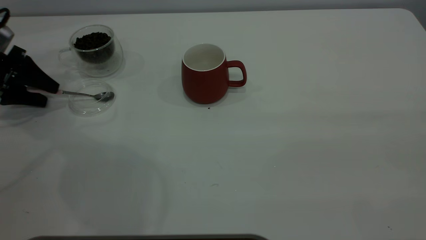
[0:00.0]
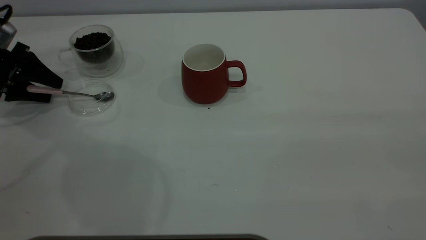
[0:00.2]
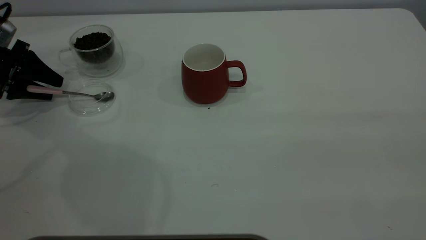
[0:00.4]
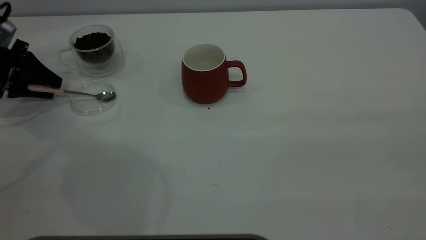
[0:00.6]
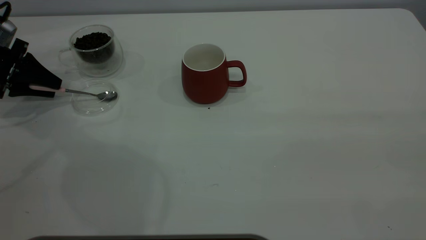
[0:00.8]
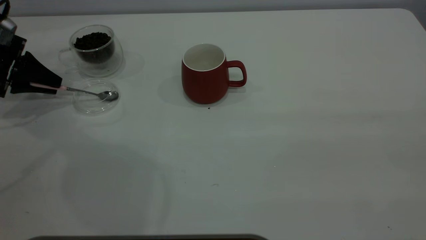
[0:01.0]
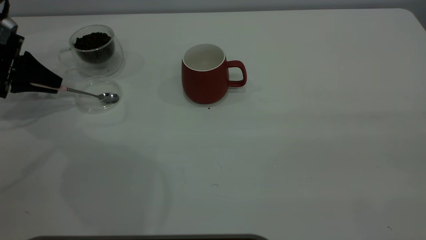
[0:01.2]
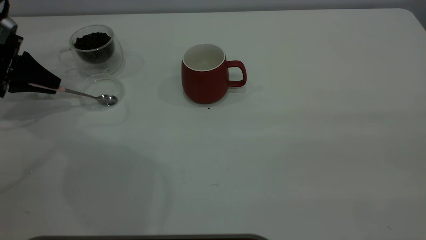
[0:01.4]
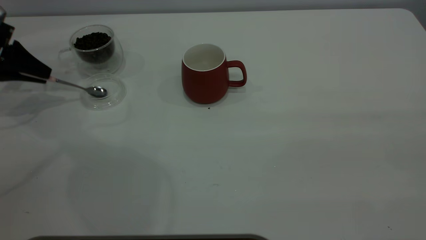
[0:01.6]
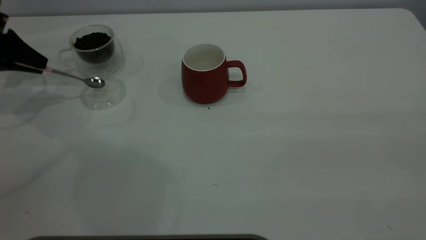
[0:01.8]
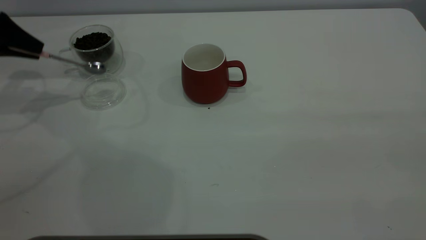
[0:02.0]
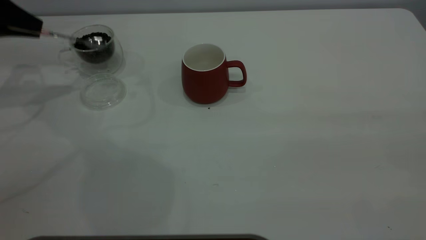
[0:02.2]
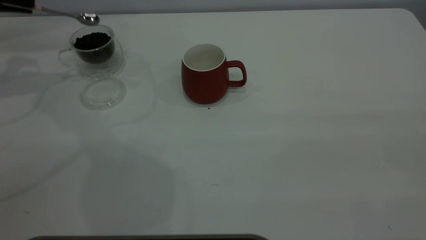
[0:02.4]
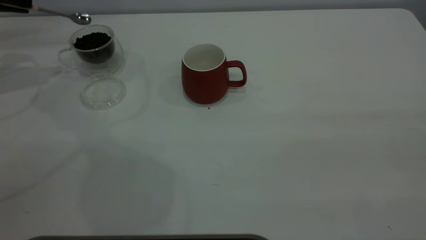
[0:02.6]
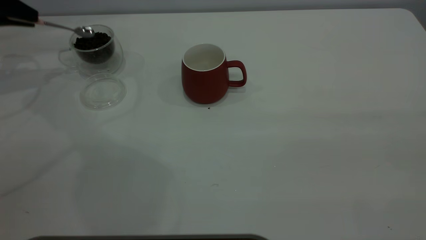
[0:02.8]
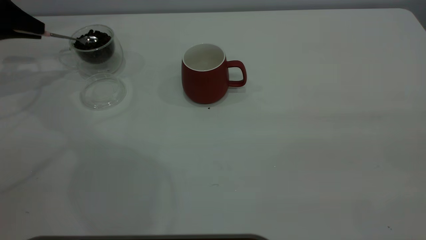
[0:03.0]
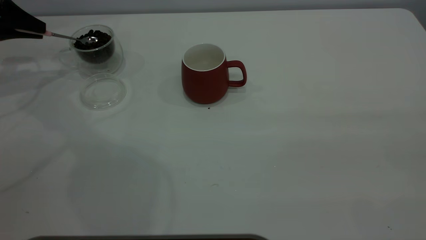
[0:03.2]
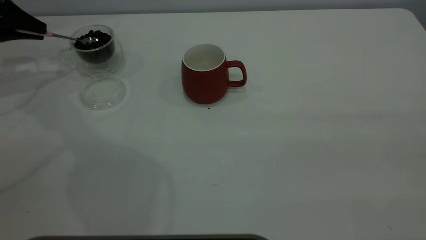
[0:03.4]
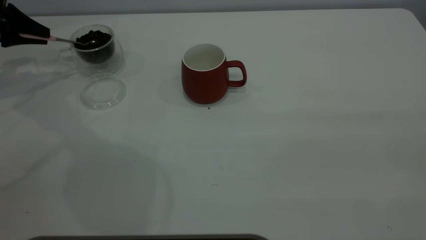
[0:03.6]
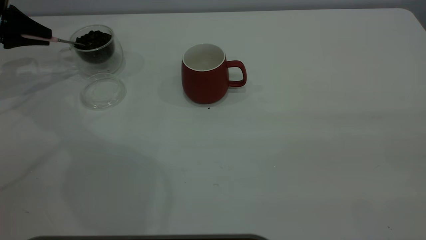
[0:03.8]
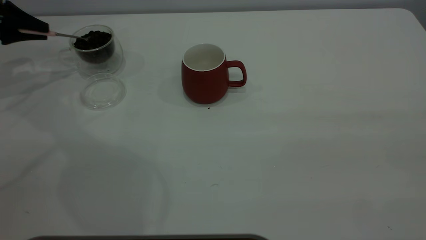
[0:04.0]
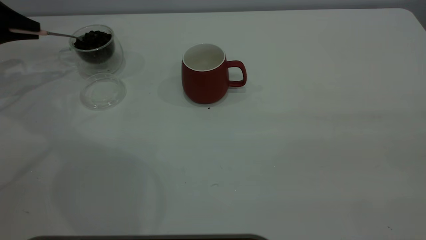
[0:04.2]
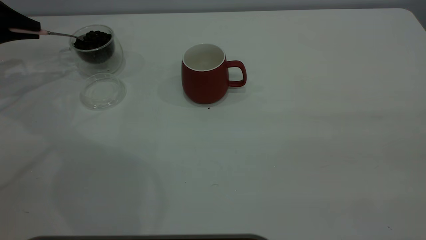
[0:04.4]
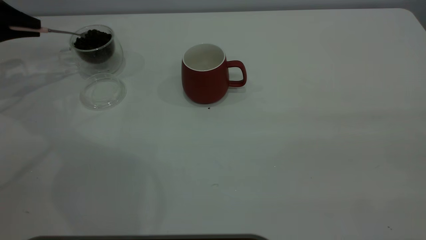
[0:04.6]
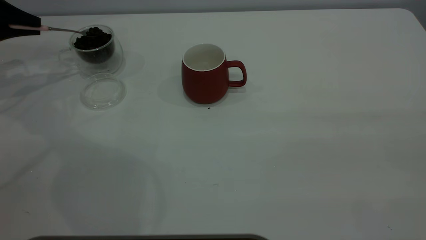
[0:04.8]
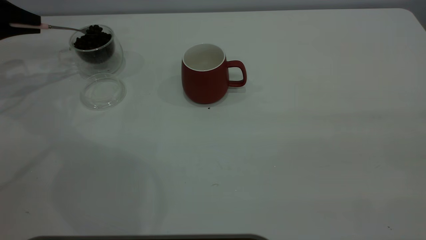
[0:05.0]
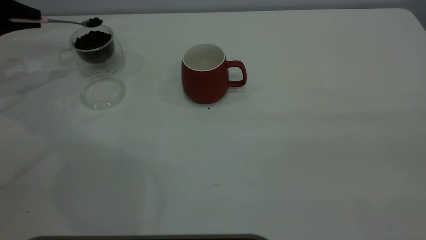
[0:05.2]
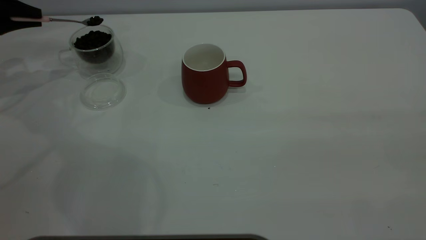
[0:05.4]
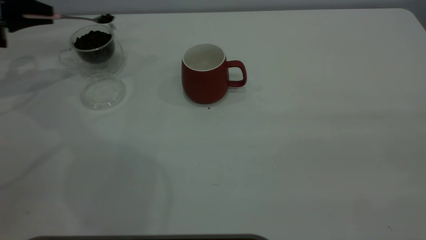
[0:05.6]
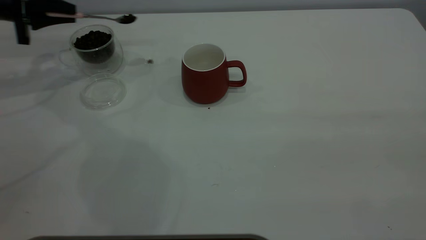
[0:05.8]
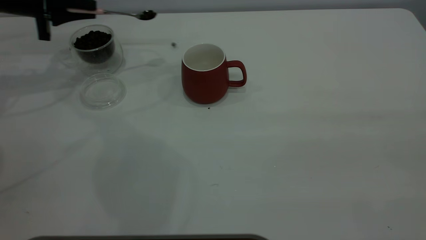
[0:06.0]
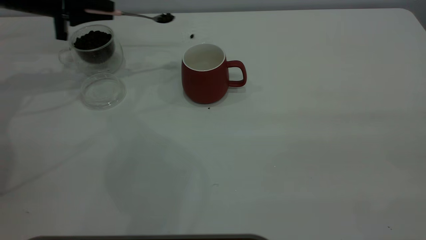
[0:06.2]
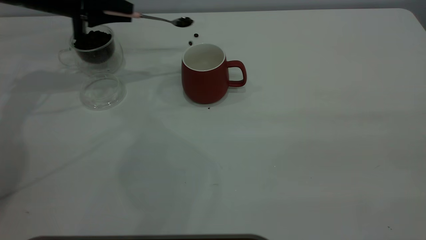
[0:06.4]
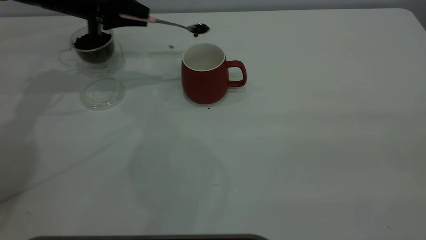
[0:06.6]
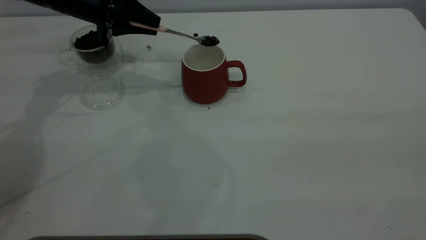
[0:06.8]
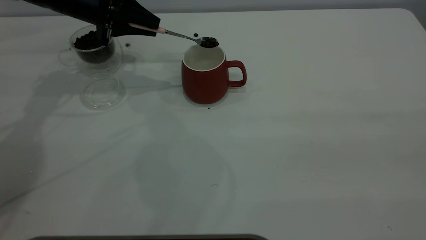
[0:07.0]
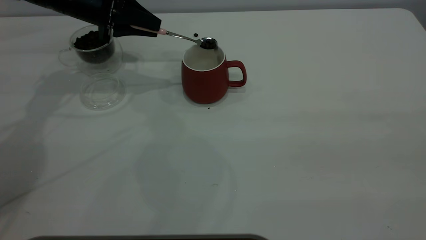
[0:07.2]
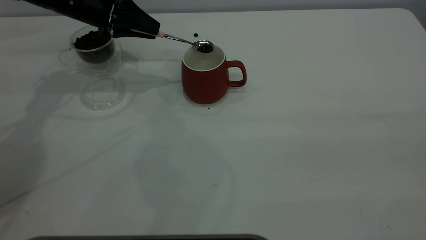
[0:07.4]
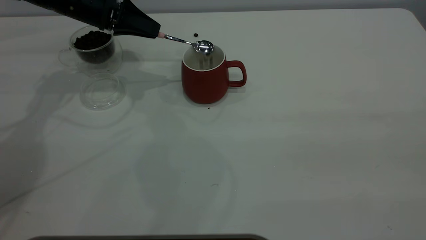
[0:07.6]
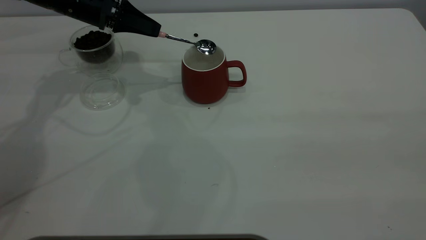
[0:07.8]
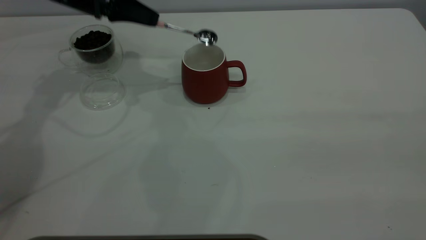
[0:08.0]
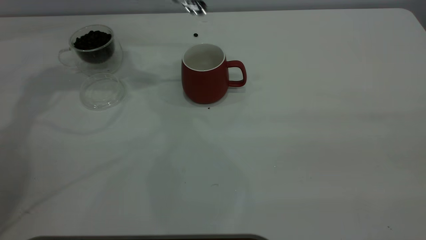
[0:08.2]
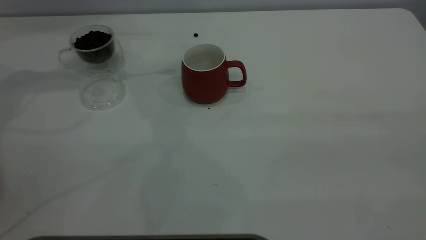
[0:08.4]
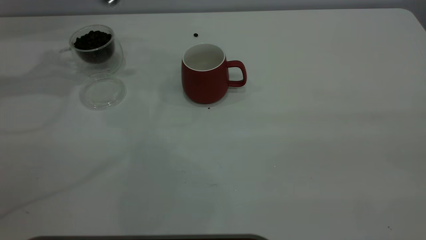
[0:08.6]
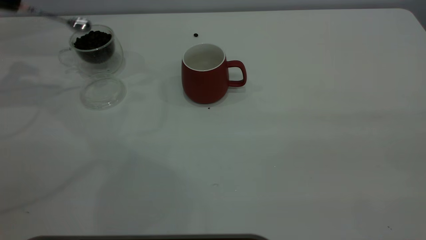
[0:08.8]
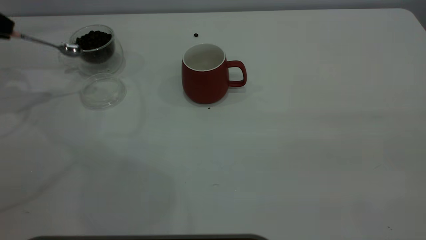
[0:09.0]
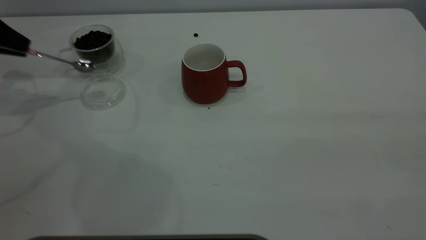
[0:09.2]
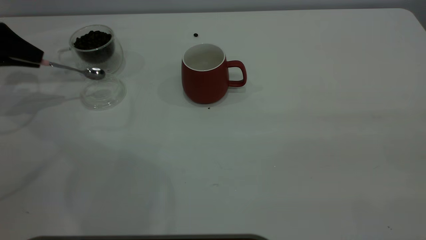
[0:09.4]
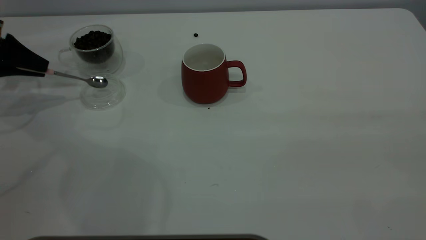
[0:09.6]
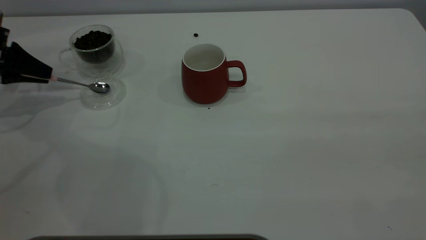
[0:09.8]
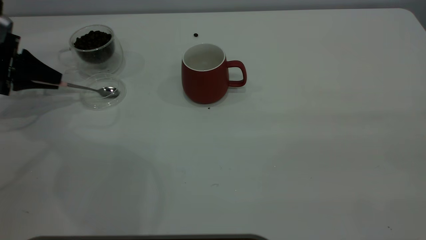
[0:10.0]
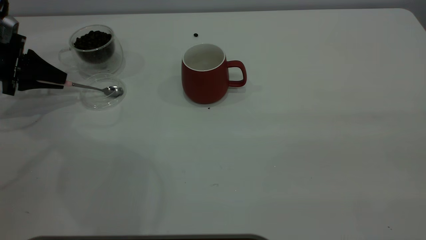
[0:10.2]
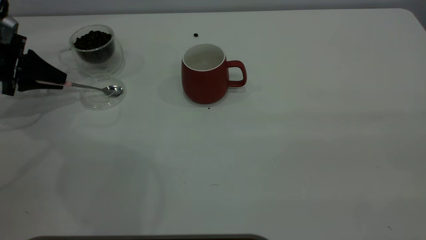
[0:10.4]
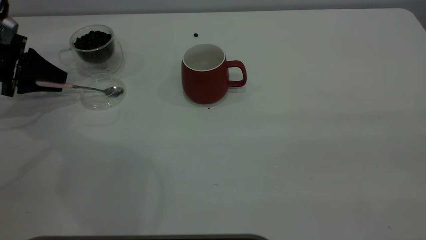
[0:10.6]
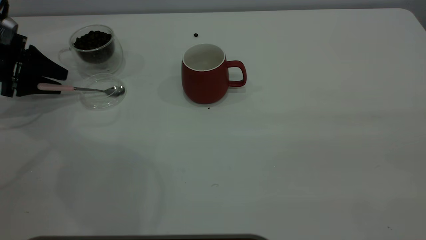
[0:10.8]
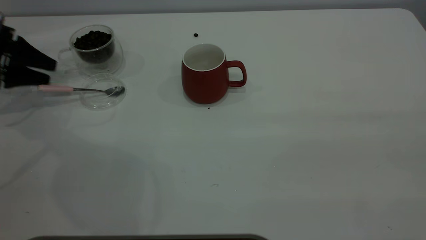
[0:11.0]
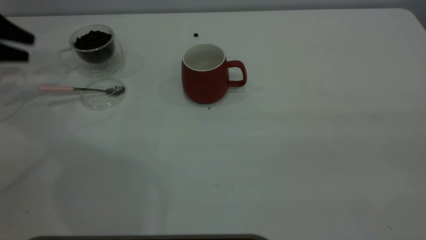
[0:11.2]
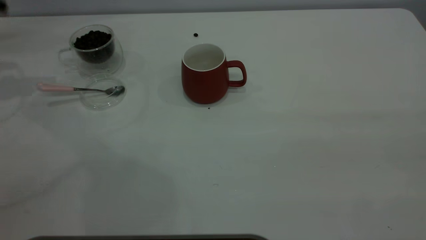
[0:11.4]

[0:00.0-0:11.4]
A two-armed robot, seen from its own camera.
Task of the whole recording: the right gripper place the red cup in the center of the table, the left gripper take the pink spoon from the cup lid and scoop out the coffee beans from the coffee cup and put them into the red cup, the left gripper put the spoon back into the cup lid.
Step, 0:00.0 to 0:02.4: Pick up the spoon.
Step, 0:02.6 to 0:08.0: Scoop a spoonful of beans into the cup.
Step, 0:08.2 to 0:11.2: Place the spoon back in its original place.
0:00.0 to 0:01.4: The left gripper closes its fingers.
0:01.4 to 0:02.8: The left gripper shifts roughly 5 cm upward.
0:04.2 to 0:05.6: There are only small adjustments of the grippers.
0:05.6 to 0:07.2: The left gripper travels to the right by about 15 cm.
0:07.2 to 0:08.6: The left gripper heads to the left and upward, covering some 20 cm.
0:08.6 to 0:10.0: The left gripper is displaced downward by some 20 cm.
0:10.0 to 0:11.4: The left gripper is displaced upward by approximately 15 cm, and opens up.
